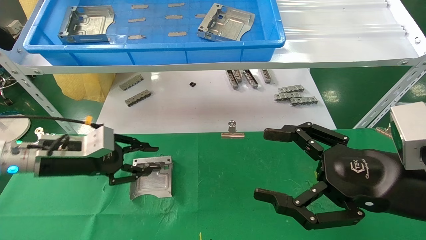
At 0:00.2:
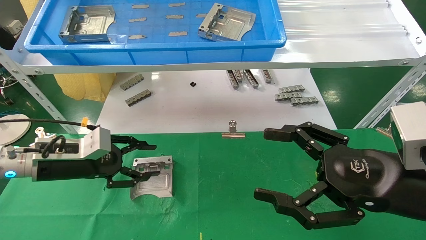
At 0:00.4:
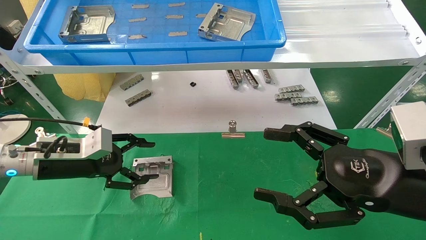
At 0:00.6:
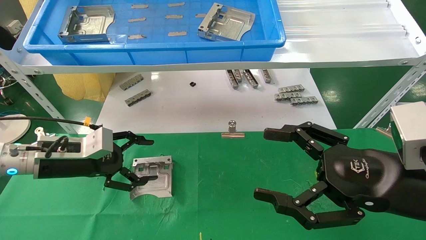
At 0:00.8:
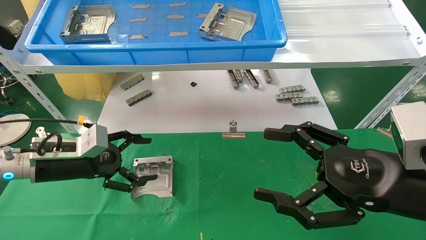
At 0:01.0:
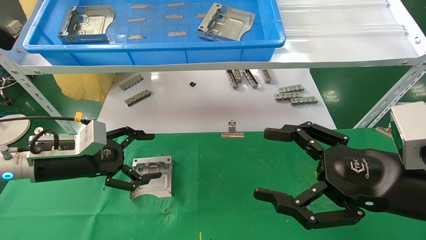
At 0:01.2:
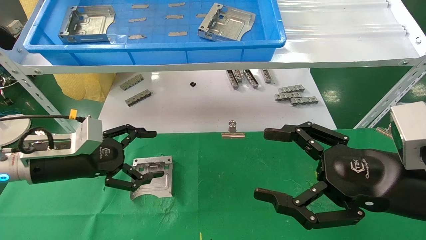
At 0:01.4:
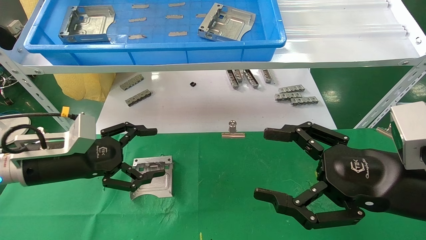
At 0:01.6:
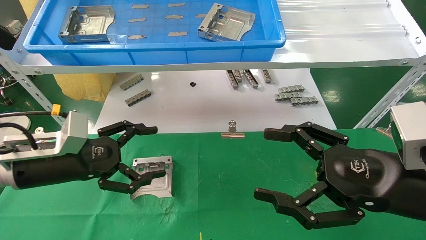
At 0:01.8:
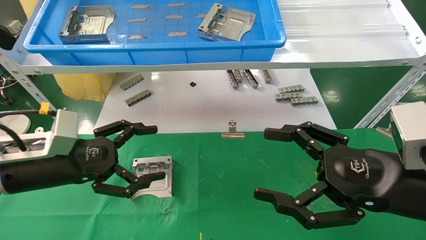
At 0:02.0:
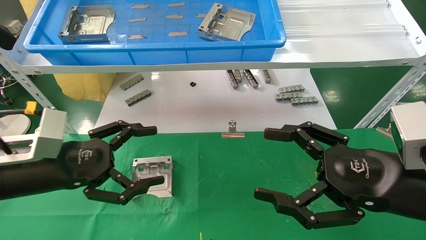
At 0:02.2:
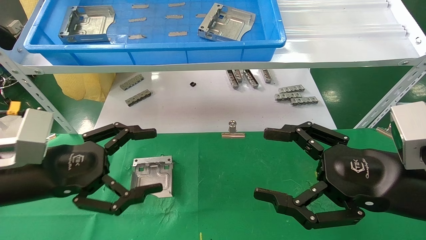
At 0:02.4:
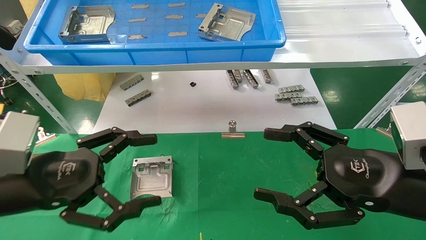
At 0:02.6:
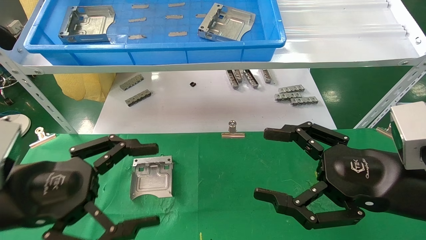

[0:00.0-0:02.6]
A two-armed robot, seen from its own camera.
Task of the whole recording: use the mechanical arm to pick up the parts and place them on the table.
0:00.0 to 0:01.2: The left gripper opens up.
0:01.2 to 0:02.6: The left gripper is displaced backward by about 15 cm.

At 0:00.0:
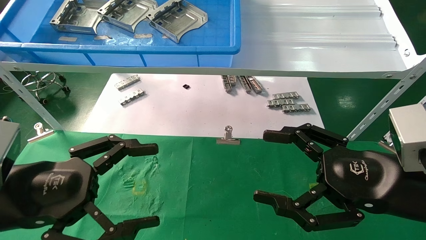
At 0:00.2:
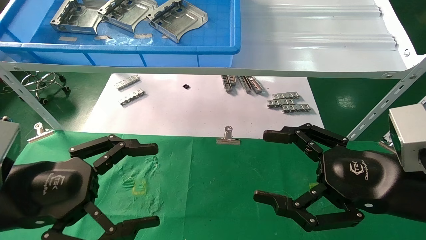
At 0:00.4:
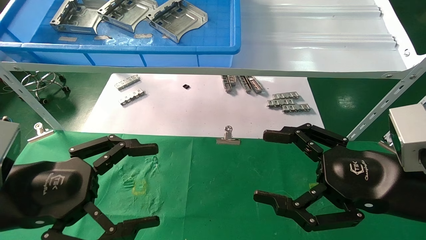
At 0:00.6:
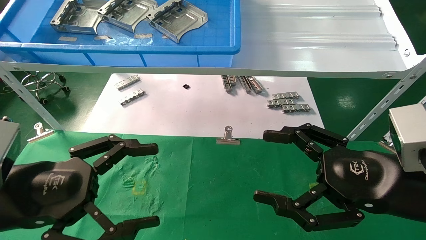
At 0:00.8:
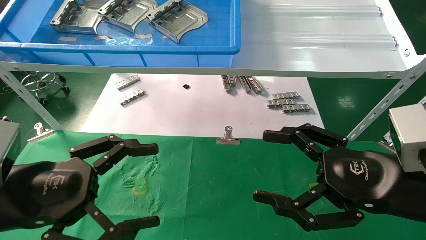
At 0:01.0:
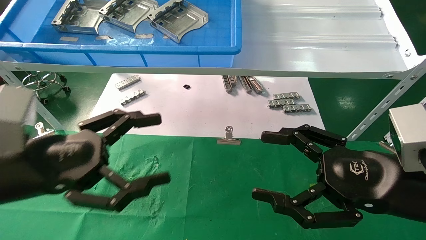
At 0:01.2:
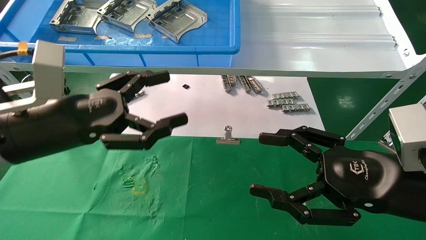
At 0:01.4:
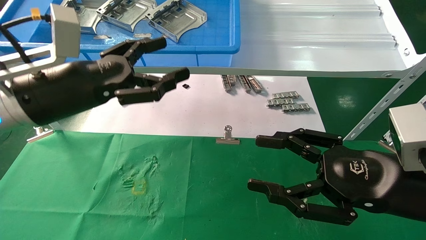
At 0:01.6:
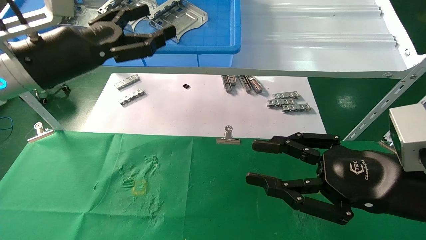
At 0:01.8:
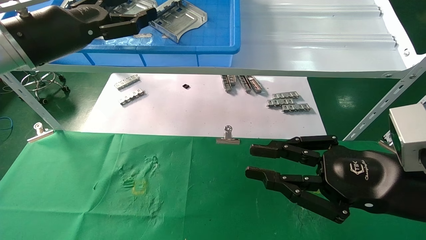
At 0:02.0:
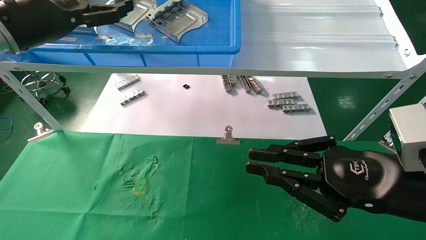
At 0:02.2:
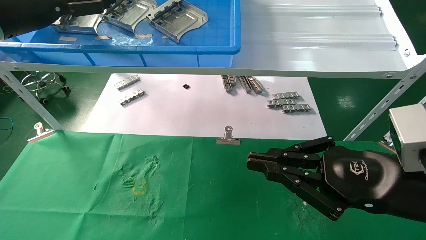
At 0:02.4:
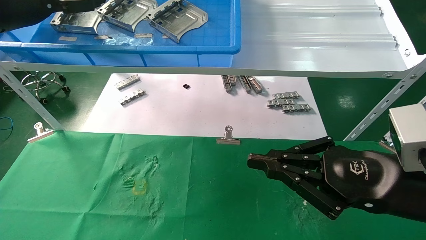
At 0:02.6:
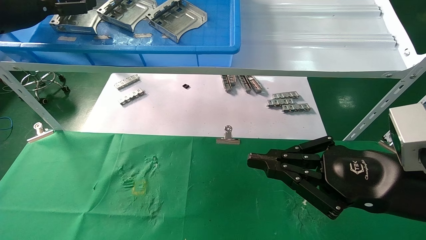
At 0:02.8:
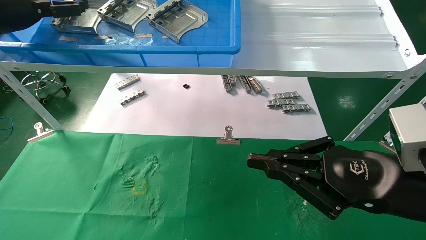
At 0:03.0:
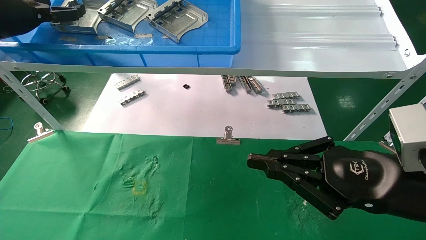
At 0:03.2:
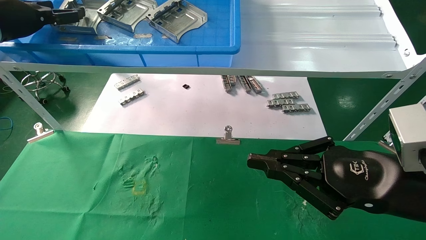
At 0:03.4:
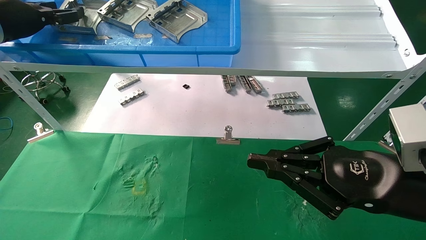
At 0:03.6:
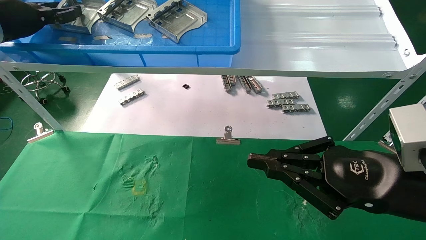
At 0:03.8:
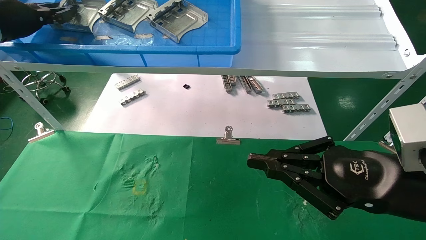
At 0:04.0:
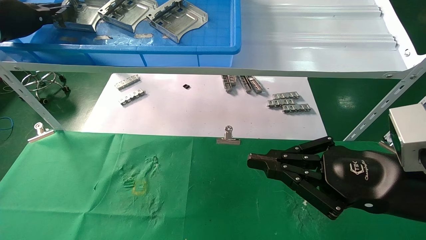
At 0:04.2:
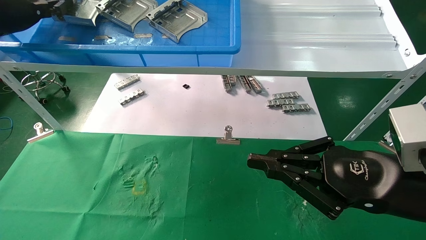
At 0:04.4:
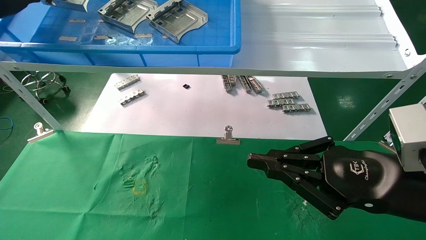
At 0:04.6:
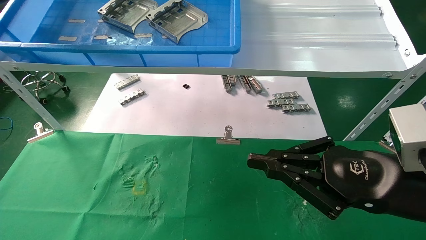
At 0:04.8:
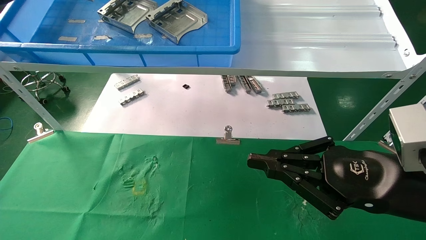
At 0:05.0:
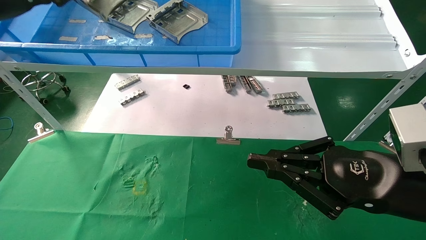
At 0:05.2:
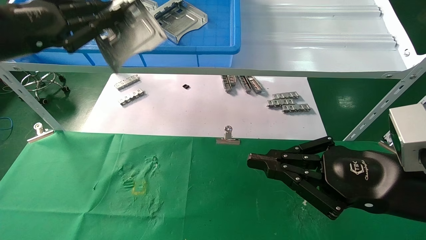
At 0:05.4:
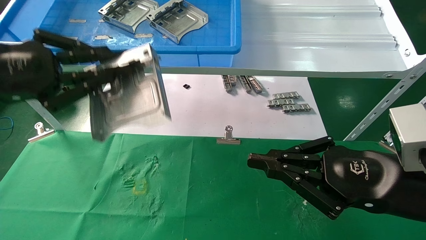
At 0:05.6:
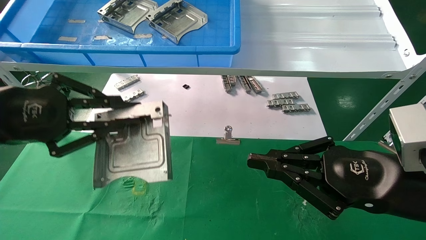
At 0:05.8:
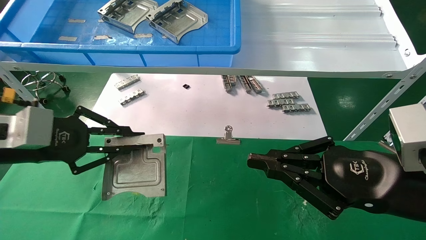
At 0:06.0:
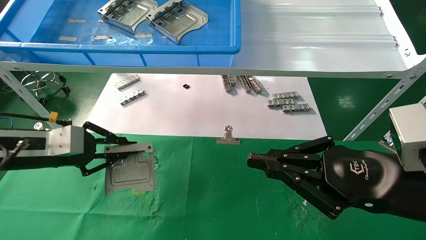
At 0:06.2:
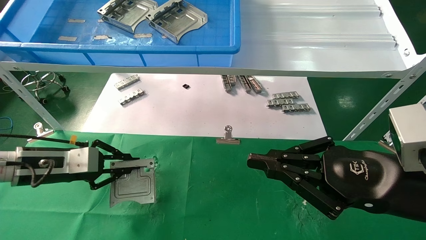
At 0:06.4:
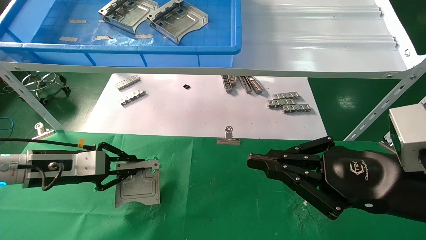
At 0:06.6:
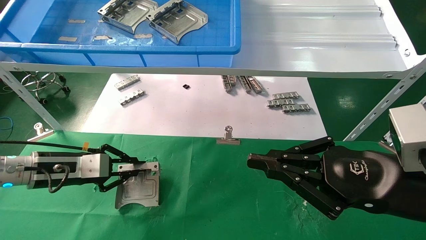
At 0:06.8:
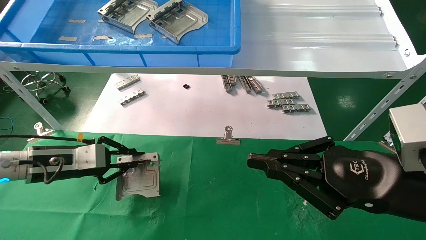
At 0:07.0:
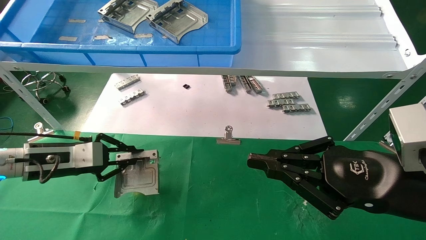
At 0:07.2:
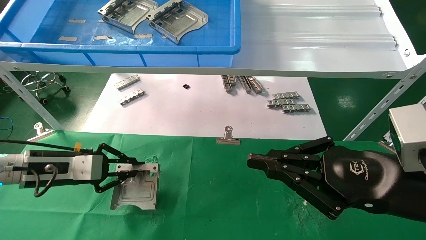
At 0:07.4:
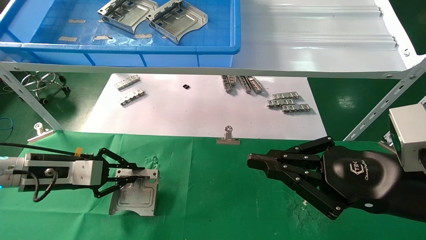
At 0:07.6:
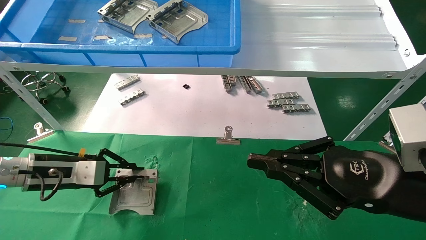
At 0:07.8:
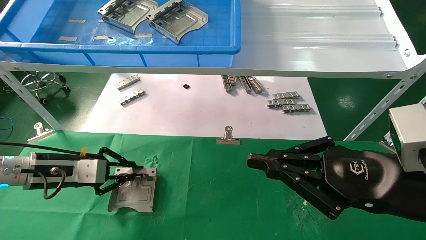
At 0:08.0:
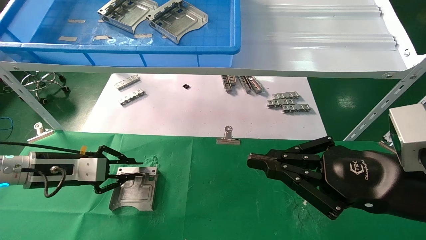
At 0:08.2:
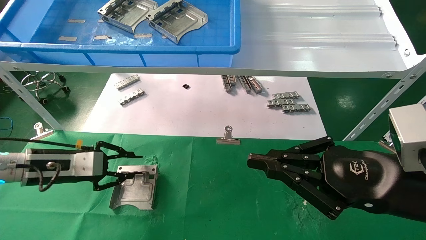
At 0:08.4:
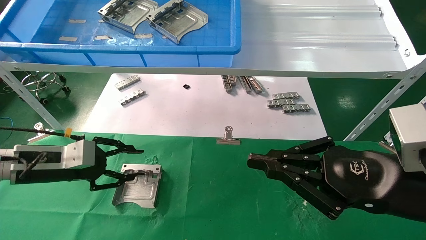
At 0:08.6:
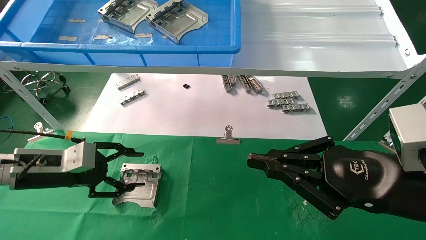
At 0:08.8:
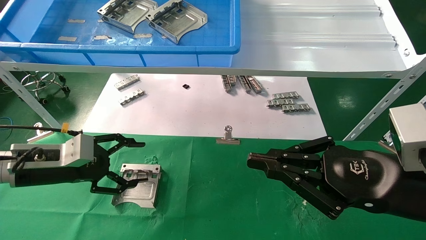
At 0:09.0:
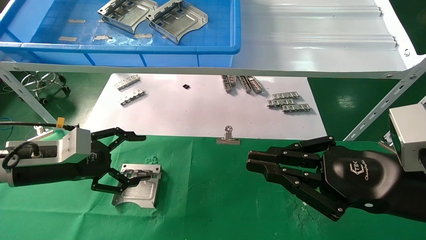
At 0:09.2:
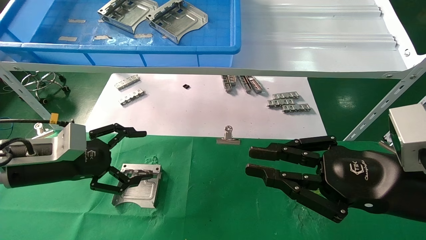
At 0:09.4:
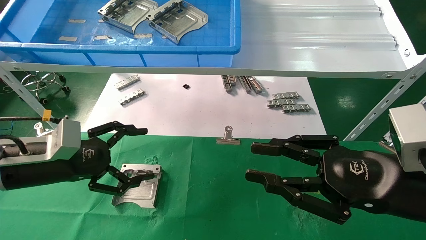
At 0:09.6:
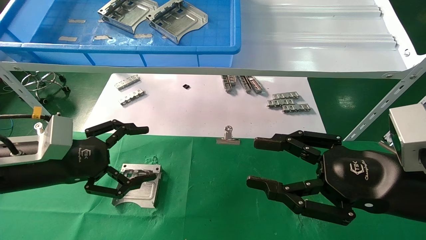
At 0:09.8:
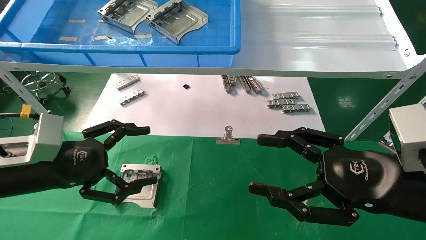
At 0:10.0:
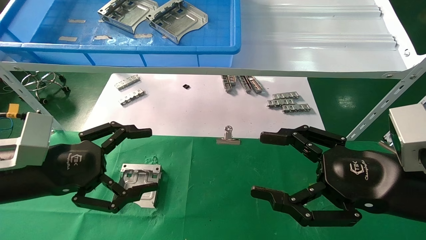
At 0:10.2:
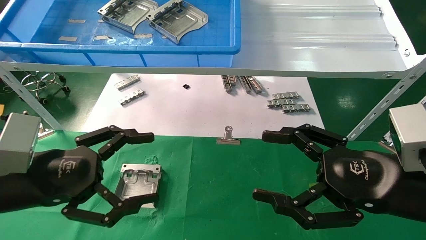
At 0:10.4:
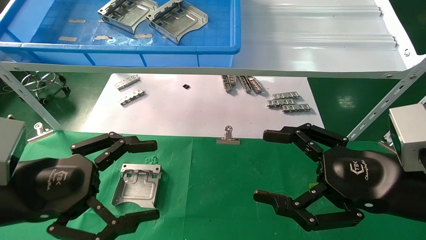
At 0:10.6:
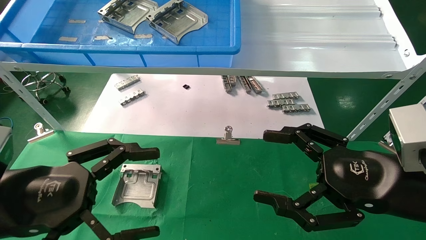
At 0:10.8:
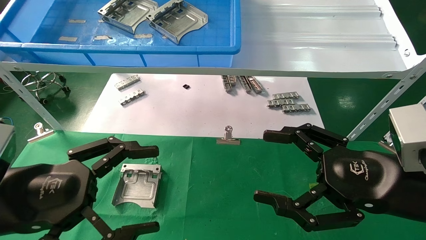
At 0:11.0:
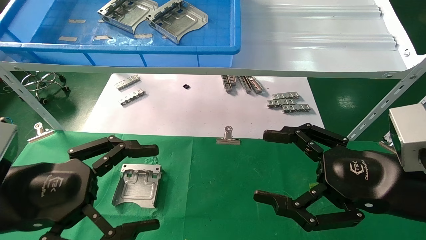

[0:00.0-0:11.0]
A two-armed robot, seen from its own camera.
Task of the whole recording: use the mechanical arm to pick up the parts and place them on the table.
Step, 0:01.2 to 0:04.0: Pick up the hard drive bracket from the feeding area.
Step, 0:04.2 to 0:08.0: Place the hard drive bracket into the box.
0:00.0 to 0:01.6: The left gripper heads forward and upward, covering approximately 20 cm. Meanwhile the right gripper closes up.
0:01.6 to 0:03.2: The right gripper closes up, while the left gripper is displaced to the left, forward and upward by about 15 cm.
0:03.2 to 0:04.8: The left gripper goes some 5 cm backward, and closes.
0:04.8 to 0:06.2: The left gripper heads downward, covering approximately 25 cm.
0:06.2 to 0:07.8: There are only small adjustments of the grippers.
0:07.8 to 0:09.4: The left gripper travels backward by about 5 cm, and opens.
0:09.4 to 0:11.0: The left gripper moves backward, approximately 10 cm. The right gripper opens up.
